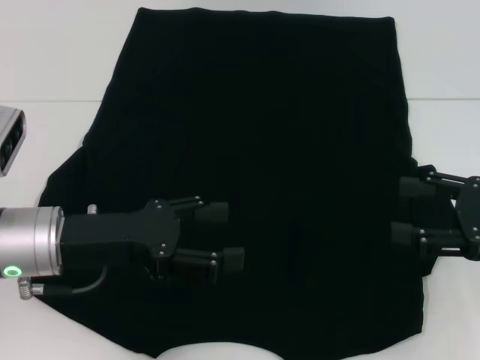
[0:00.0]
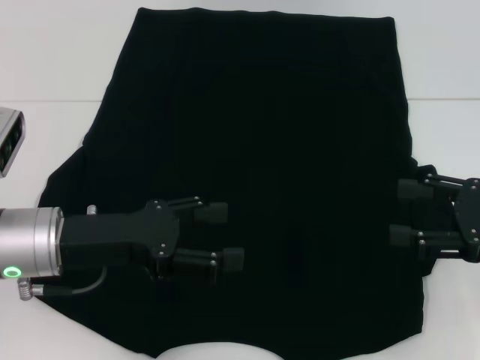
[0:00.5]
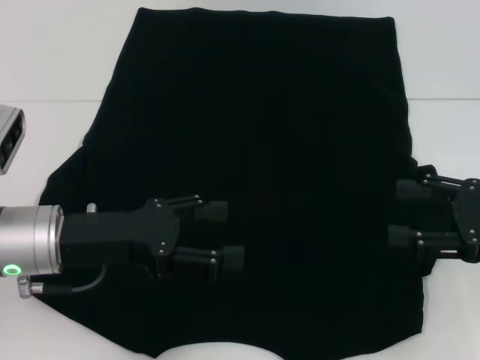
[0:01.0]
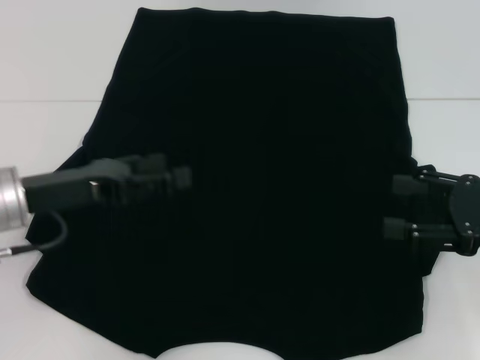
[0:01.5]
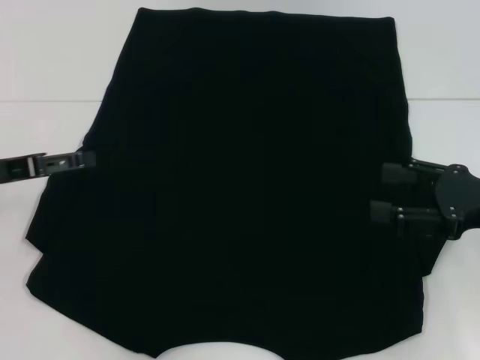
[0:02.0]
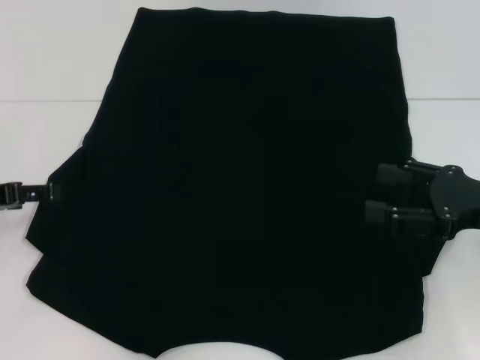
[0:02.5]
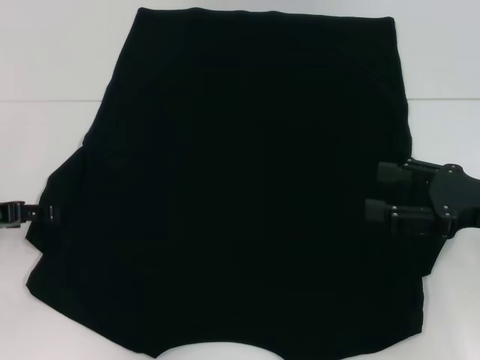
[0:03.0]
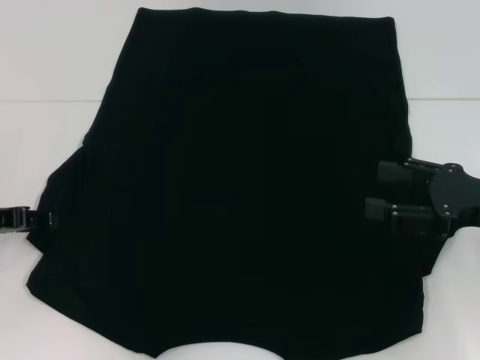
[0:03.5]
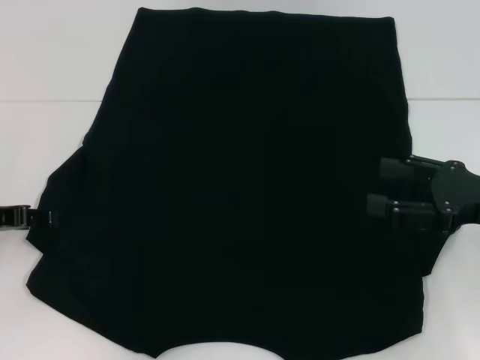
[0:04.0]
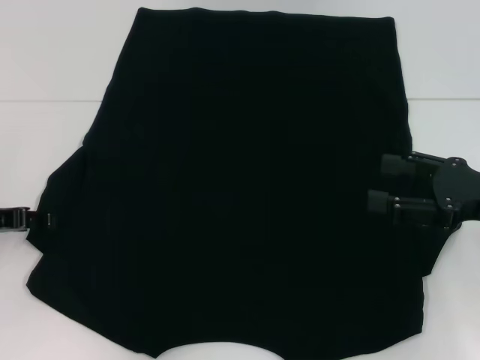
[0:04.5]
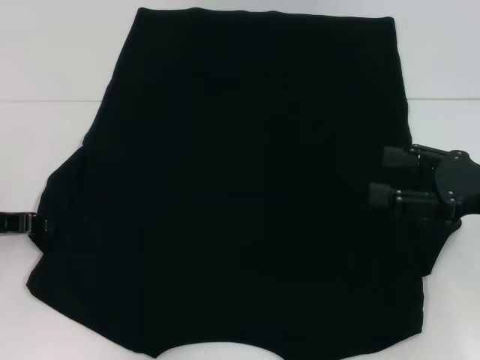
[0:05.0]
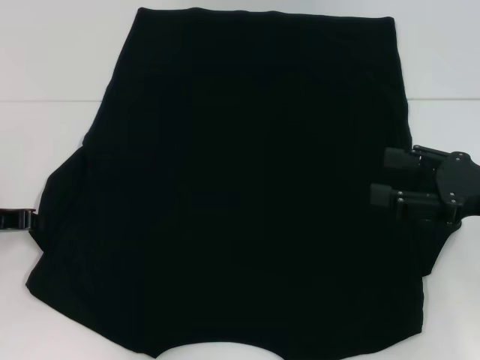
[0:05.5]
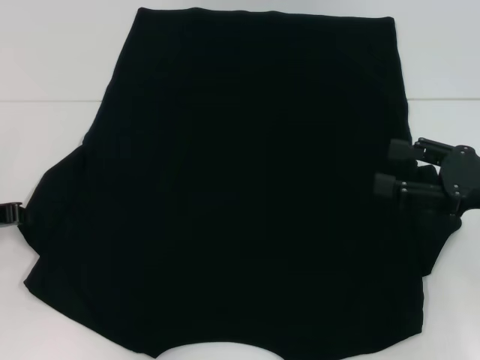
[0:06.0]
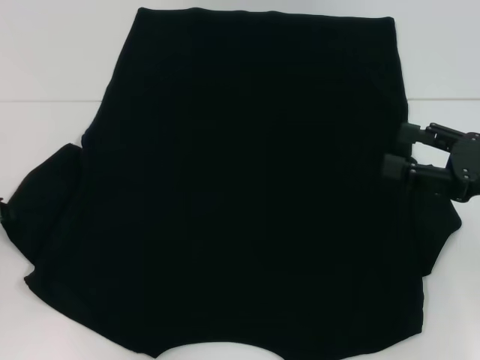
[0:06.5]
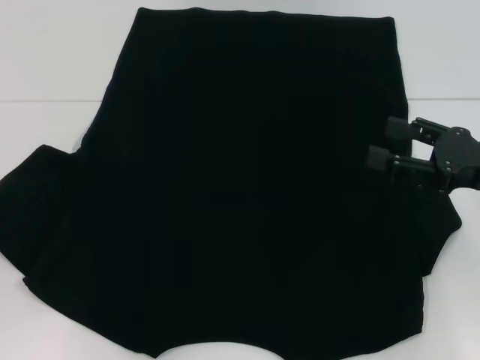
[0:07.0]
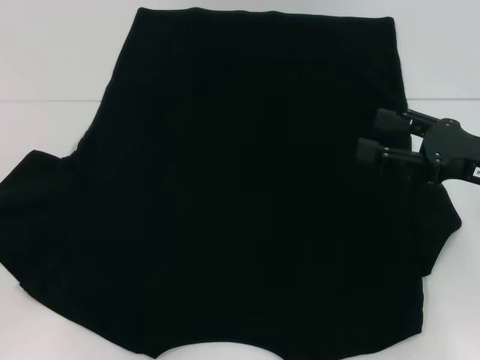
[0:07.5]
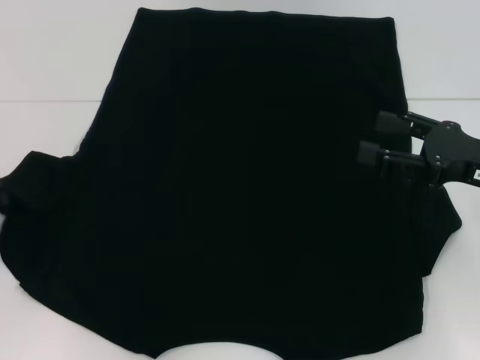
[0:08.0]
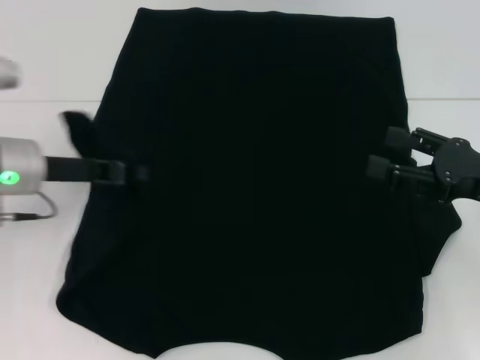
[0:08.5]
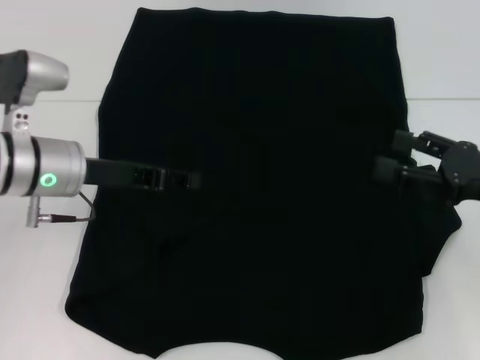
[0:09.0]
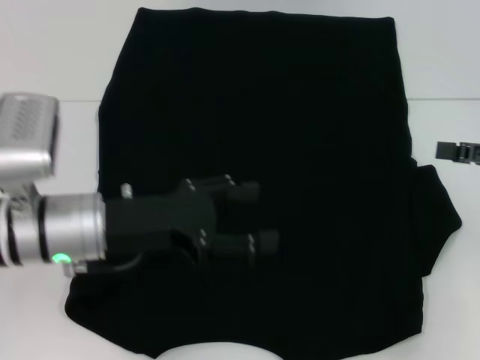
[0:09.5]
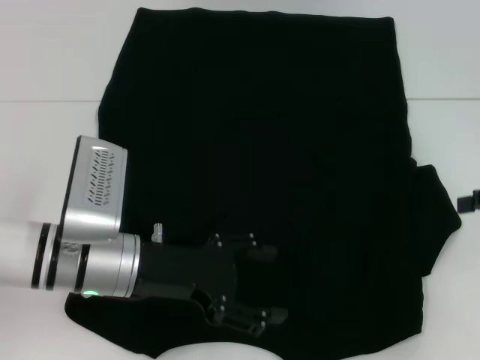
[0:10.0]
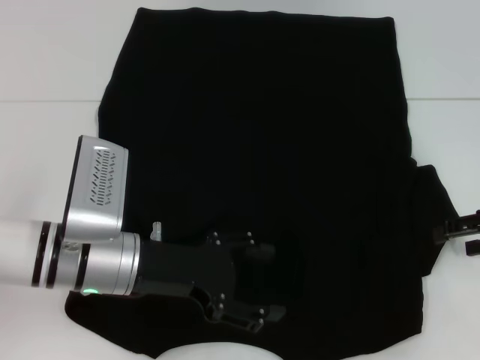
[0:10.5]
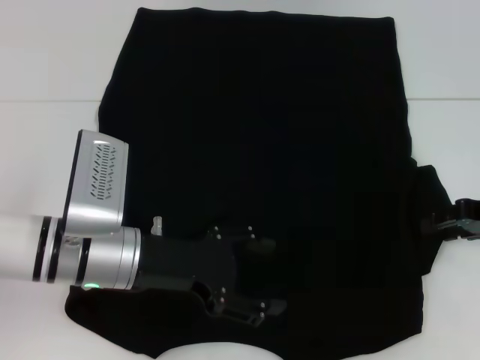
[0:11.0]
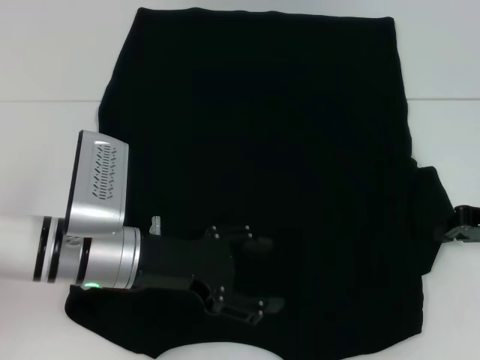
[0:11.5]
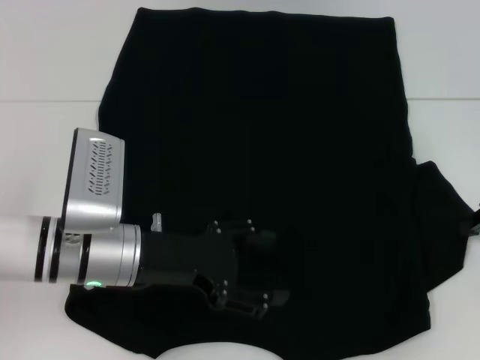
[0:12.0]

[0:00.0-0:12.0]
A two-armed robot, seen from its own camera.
Step, 0:00.0 to 0:09.0: Fold the bottom left sleeve with your left hand.
0:00.0 to 0:02.0: The left gripper moves to the left, about 10 cm.
0:02.0 to 0:04.0: The left gripper closes up.
0:04.0 to 0:06.0: The left gripper closes up.
0:06.0 to 0:08.0: The grippers move only a little.
0:08.0 to 0:10.0: The left gripper moves to the right, about 20 cm, and opens. The right gripper shifts about 10 cm to the right.
0:10.0 to 0:12.0: The right gripper changes place by approximately 5 cm, and closes.

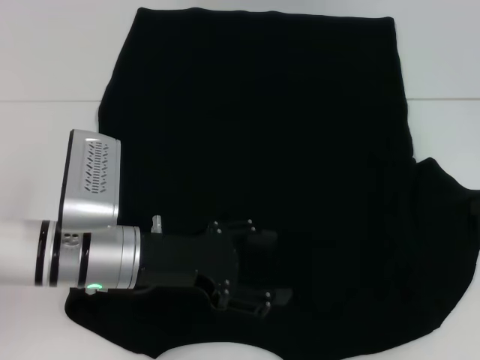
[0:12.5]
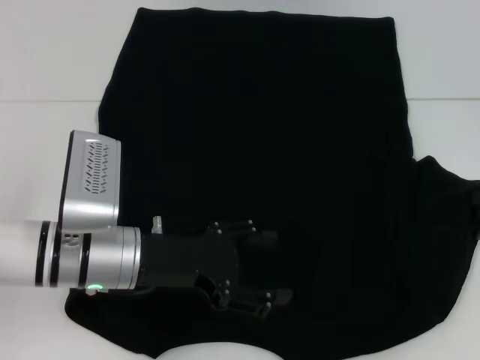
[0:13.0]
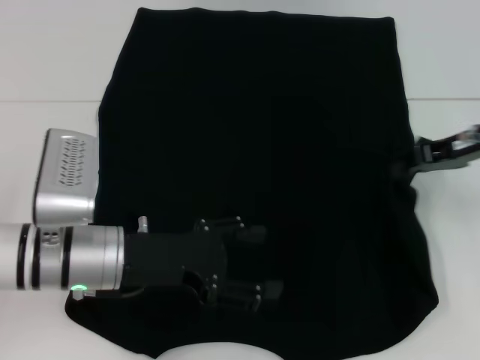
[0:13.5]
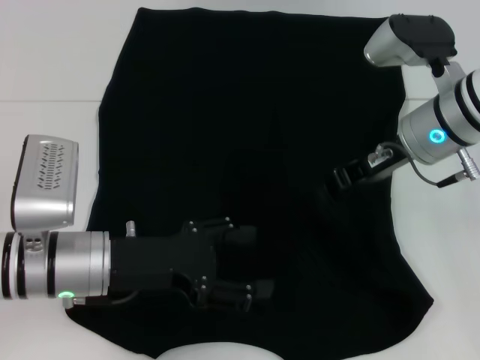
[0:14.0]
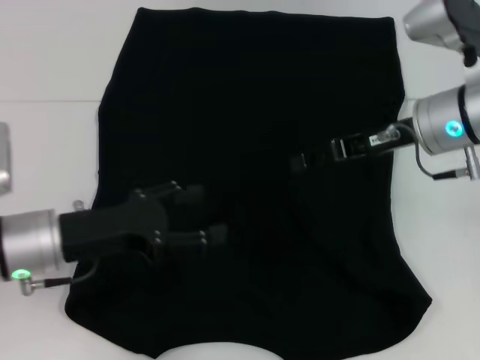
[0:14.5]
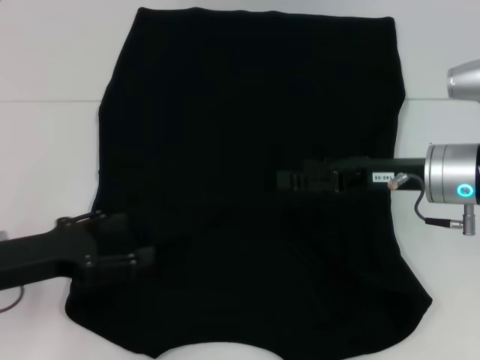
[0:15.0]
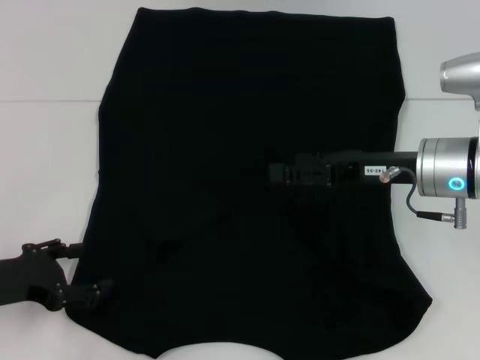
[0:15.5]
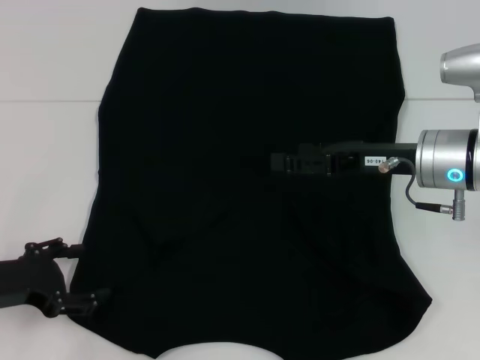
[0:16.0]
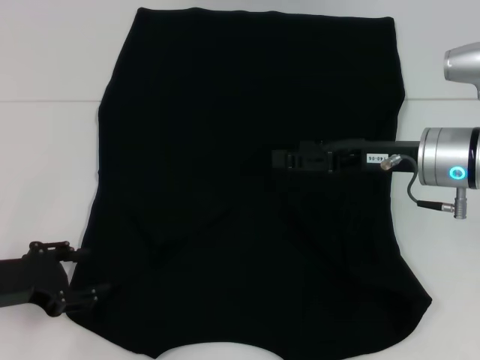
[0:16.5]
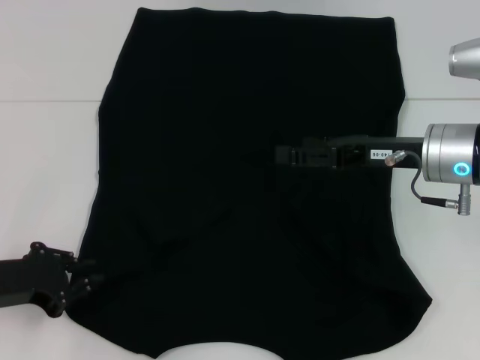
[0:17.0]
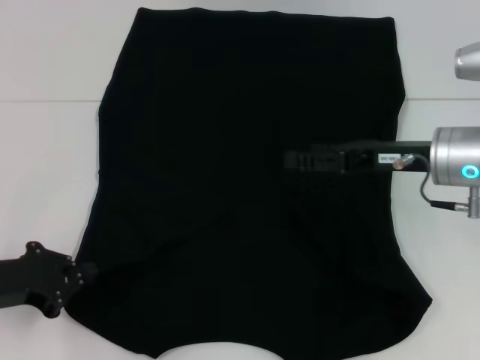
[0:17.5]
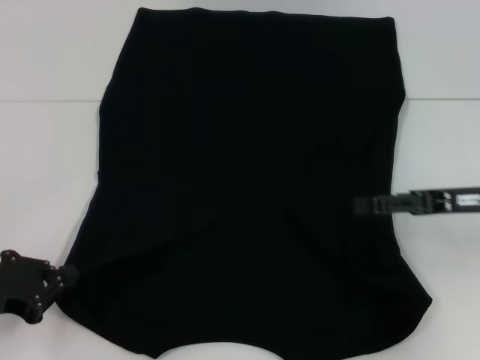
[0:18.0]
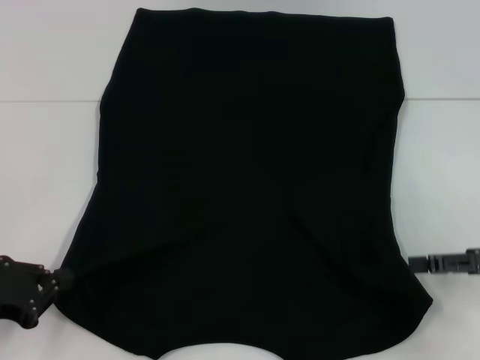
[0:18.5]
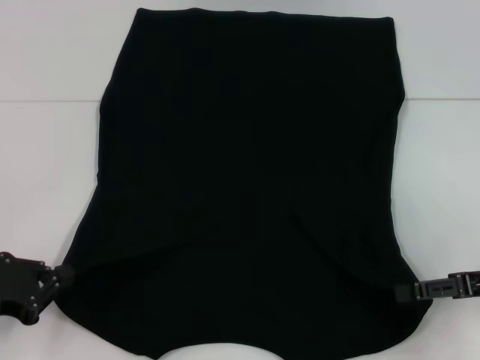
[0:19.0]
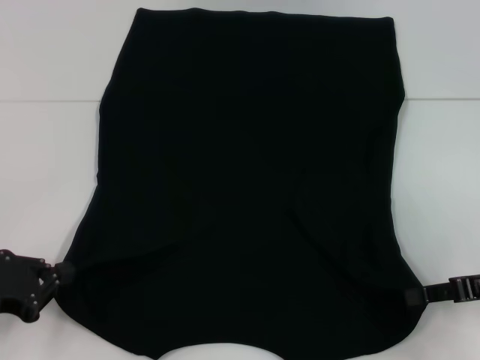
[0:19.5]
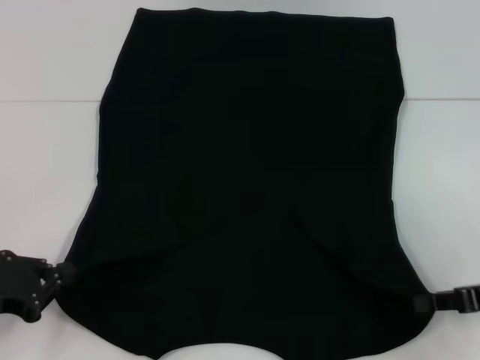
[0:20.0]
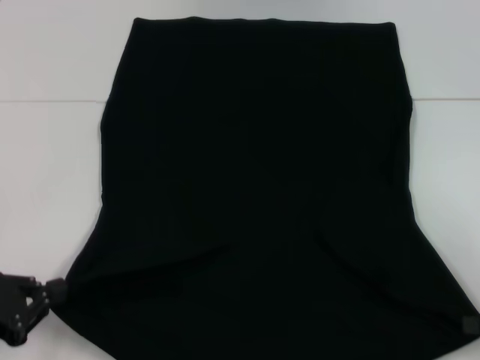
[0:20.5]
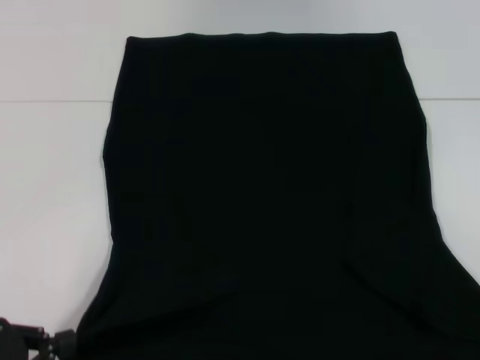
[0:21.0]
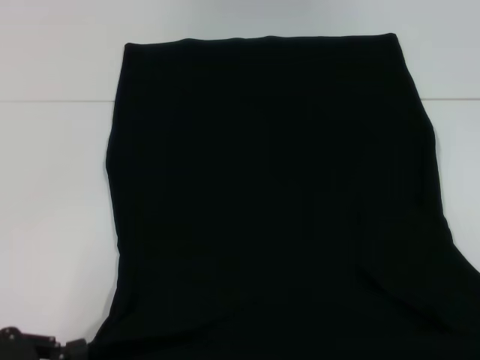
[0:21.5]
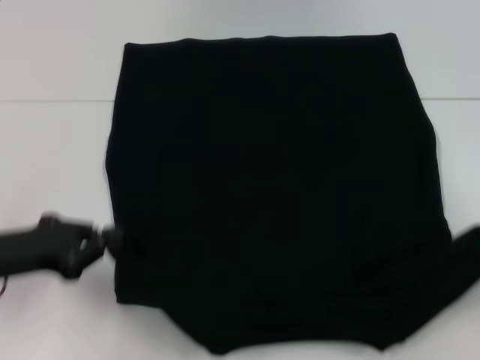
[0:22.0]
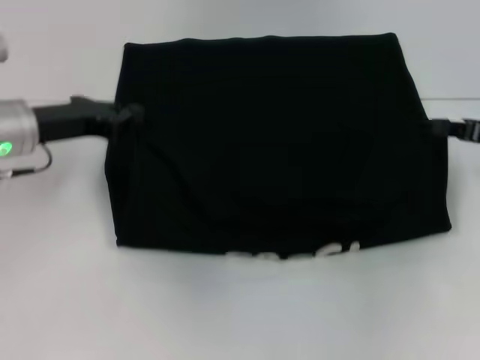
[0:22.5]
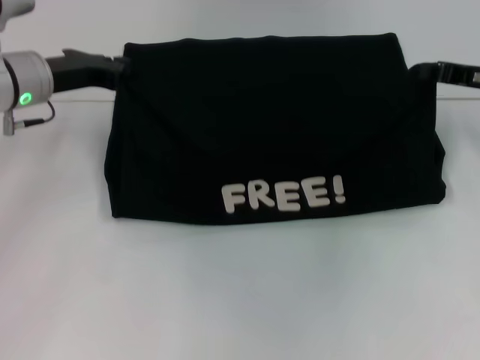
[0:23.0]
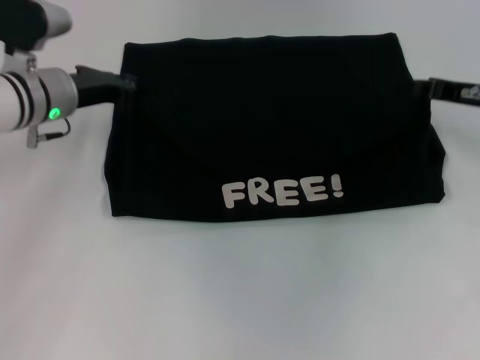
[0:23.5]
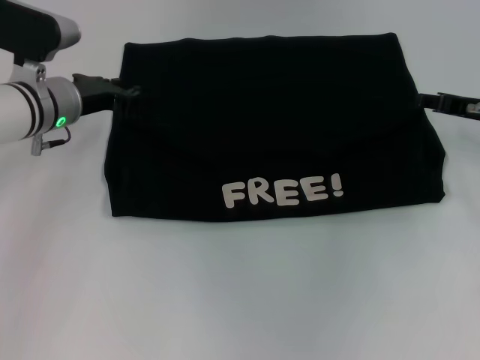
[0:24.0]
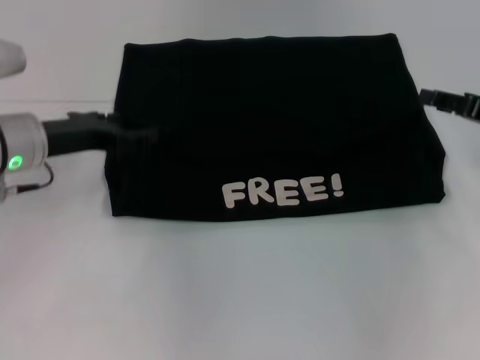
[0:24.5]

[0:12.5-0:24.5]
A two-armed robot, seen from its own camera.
Step, 0:14.5 to 0:20.0: Grab the bottom left corner with your left hand.
Step, 0:14.5 to 0:20.0: Grab the bottom right corner with your right hand.
Step, 0:20.5 to 0:24.5: Fold the clothes with your left hand.
Step, 0:20.5 to 0:24.5: Fold the clothes with your right hand.
0:12.5 to 0:14.5: The left gripper is displaced to the left by approximately 5 cm. Meanwhile the right gripper travels to the left by some 15 cm, and opens.
0:14.5 to 0:16.5: The left gripper is displaced to the left by approximately 10 cm. Meanwhile the right gripper opens.
0:16.5 to 0:18.5: The left gripper closes up. Meanwhile the right gripper is displaced to the right and backward by some 15 cm.
0:18.5 to 0:20.5: The right gripper moves backward, some 5 cm, and closes its fingers.
0:20.5 to 0:22.5: Both grippers move forward, some 15 cm.
0:22.5 to 0:24.5: The left gripper opens its fingers, while the right gripper opens its fingers.

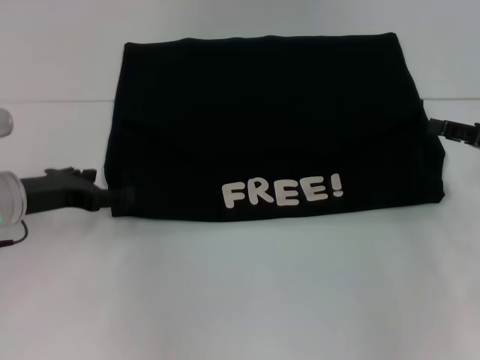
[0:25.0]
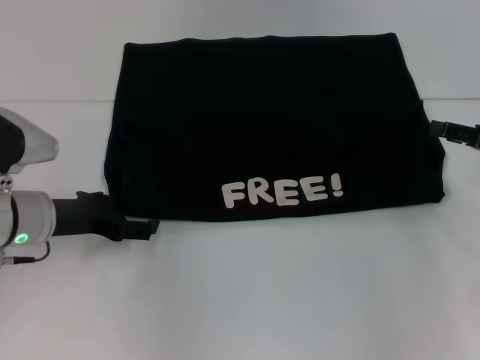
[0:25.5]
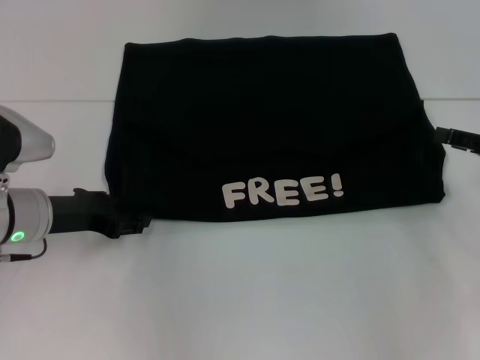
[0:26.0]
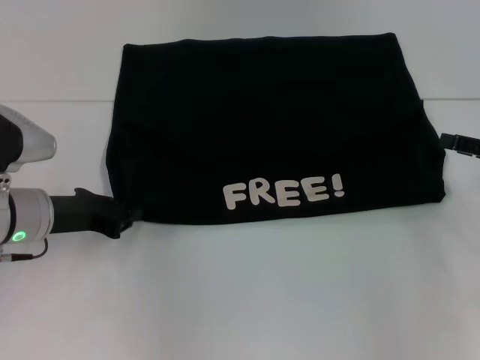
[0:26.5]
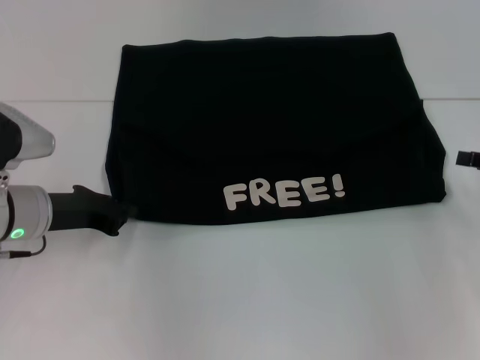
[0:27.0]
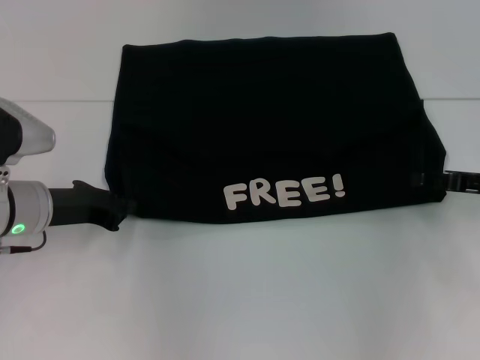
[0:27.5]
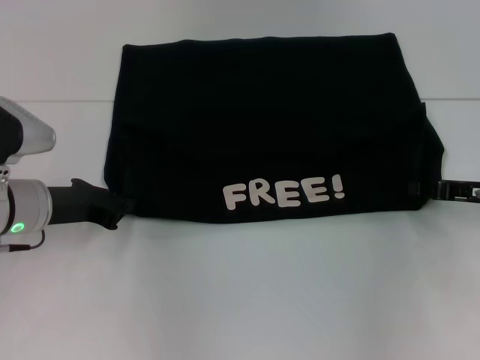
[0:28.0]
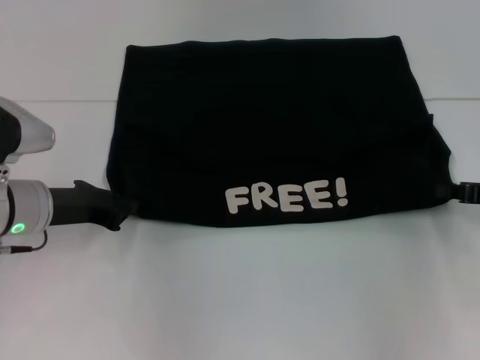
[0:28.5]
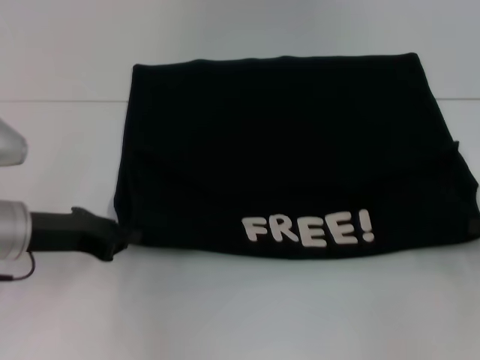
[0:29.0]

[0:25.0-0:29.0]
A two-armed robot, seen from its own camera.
0:25.0 to 0:27.0: The left gripper closes its fingers.
0:27.0 to 0:29.0: The right gripper shifts by some 5 cm, and closes.
